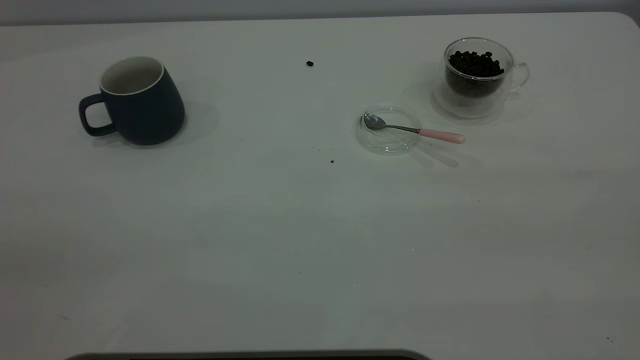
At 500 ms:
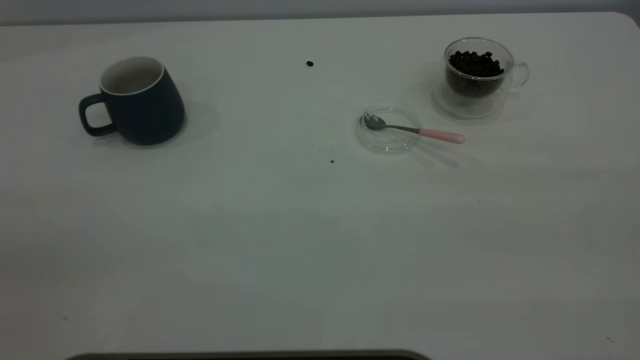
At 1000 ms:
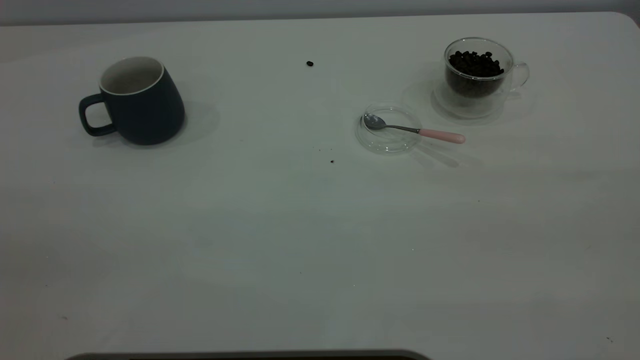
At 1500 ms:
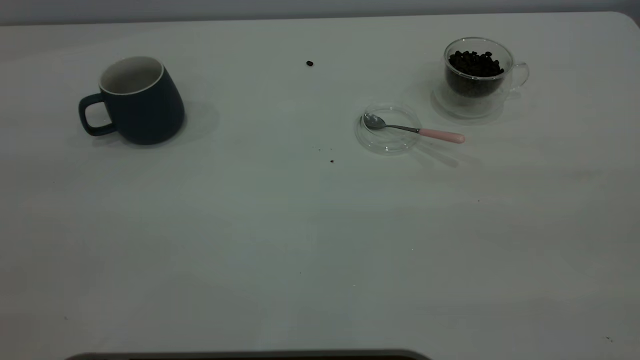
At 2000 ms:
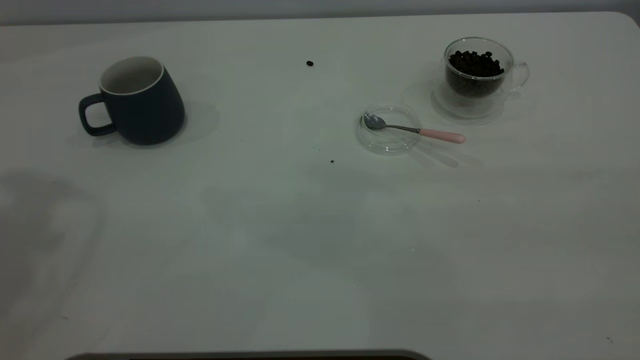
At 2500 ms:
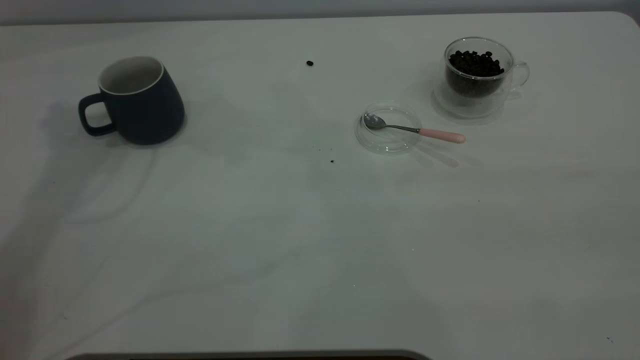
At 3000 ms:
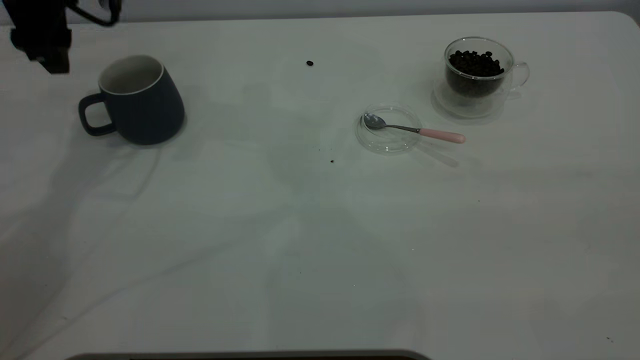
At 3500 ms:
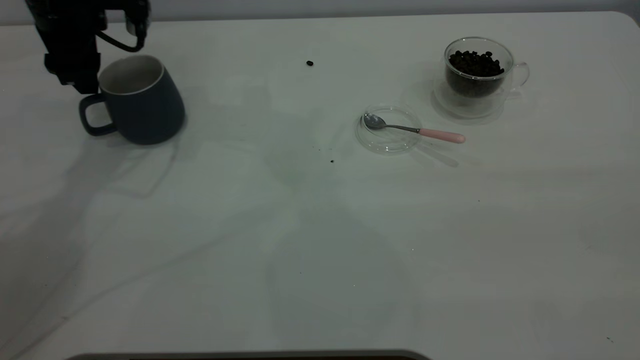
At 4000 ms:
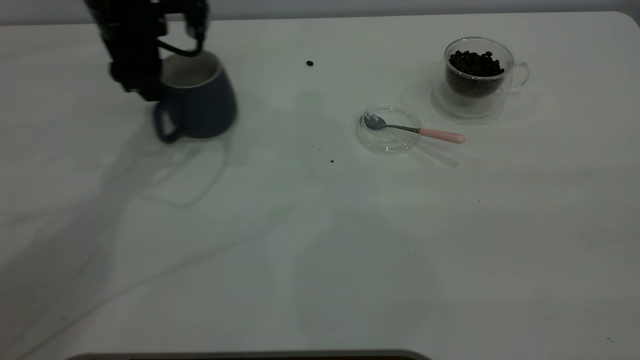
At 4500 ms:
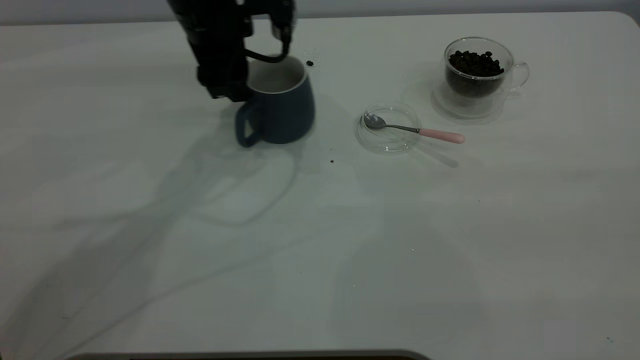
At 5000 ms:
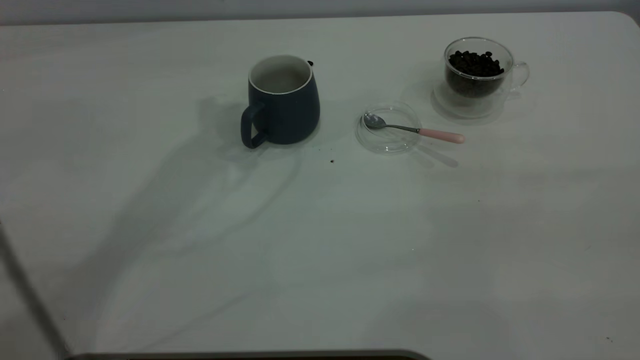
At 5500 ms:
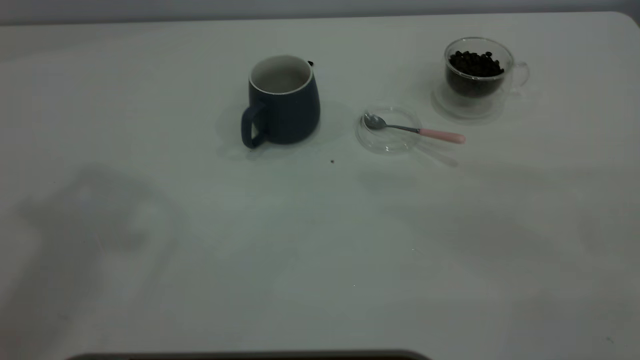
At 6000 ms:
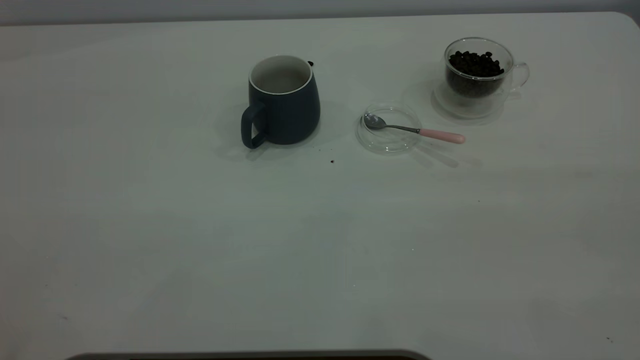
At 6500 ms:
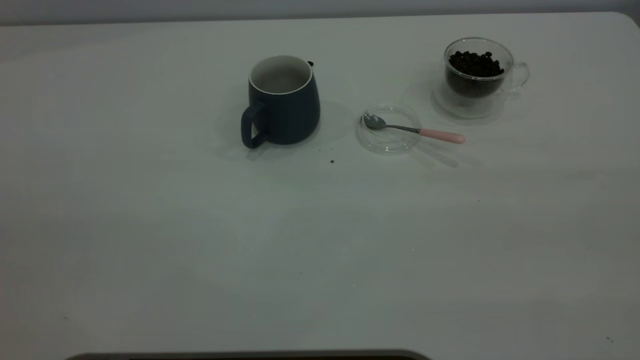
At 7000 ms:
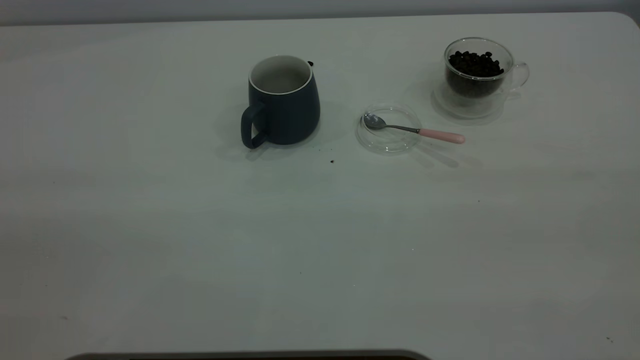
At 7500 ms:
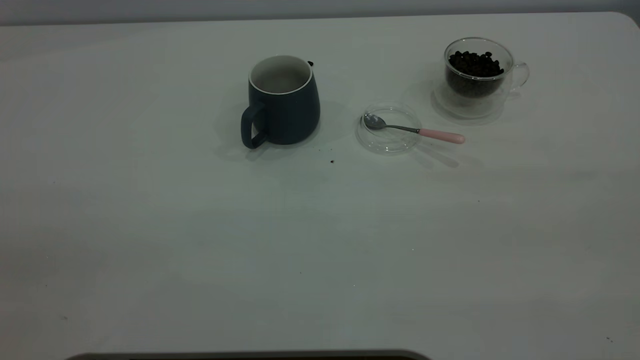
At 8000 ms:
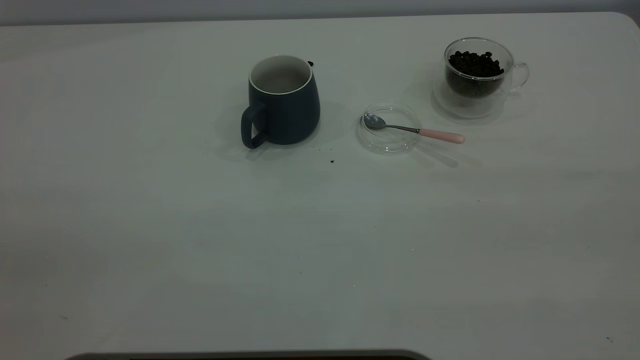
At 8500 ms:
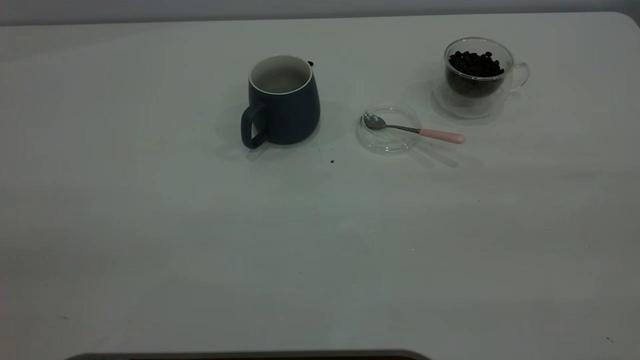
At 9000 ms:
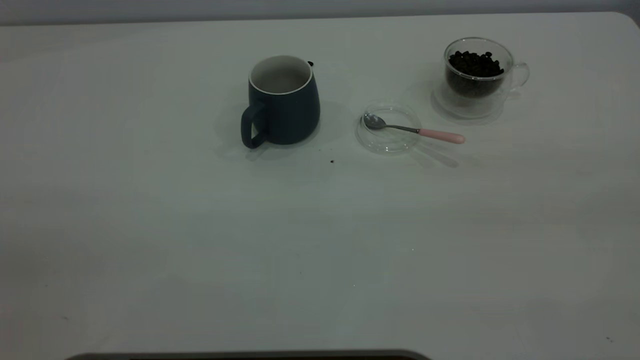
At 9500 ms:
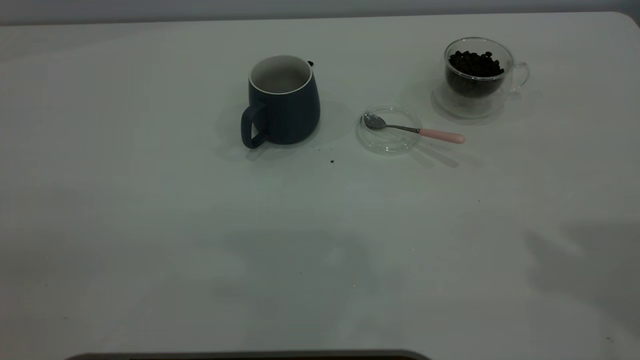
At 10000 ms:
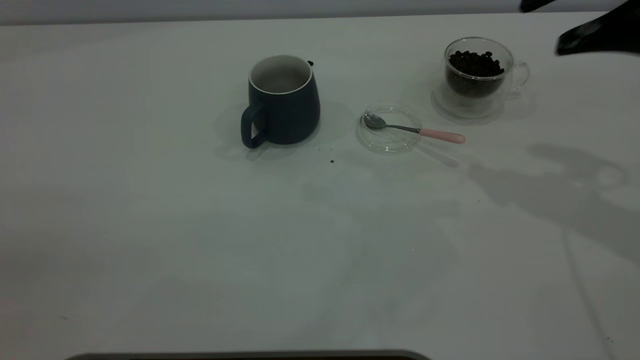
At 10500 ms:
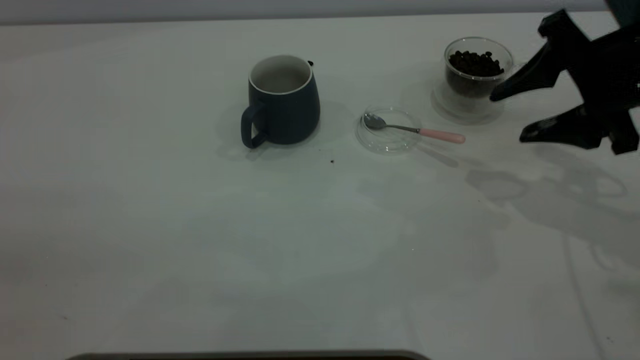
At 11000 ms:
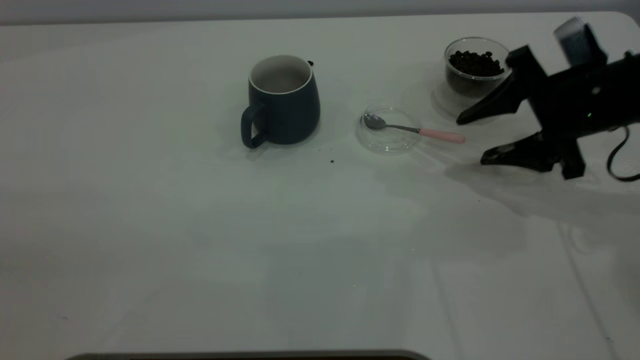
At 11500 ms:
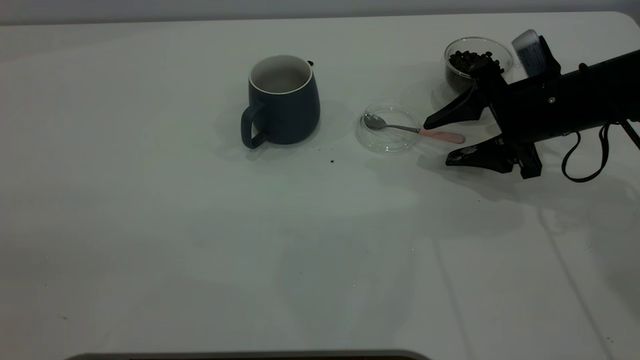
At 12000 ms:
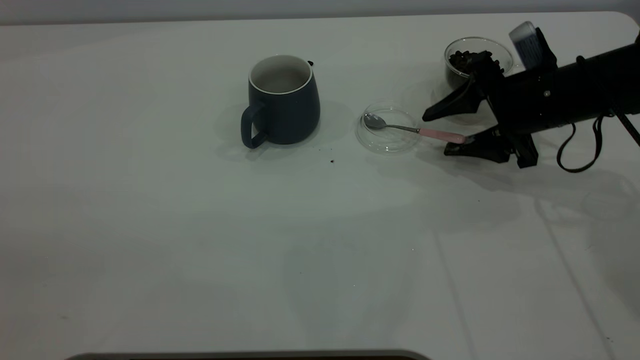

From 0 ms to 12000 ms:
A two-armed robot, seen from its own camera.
Task of the whole recording: the left gripper place the grey cup in the center of the table, the right gripper take the pink spoon from the cup lid and scoop out the coffee beans from the coffee cup and put them into the grey cup, the right gripper put the spoon back into the cup lid.
Step, from 0 ms to 4500 ms: Move the cup to the center of view.
From 2000 ms to 4000 ms: The left gripper heads downward, forward and to the right, covering roughly 35 cm.
From 4000 ms to 6000 ms: The left gripper is displaced backward and upward by some 50 cm.
From 8000 ms to 10000 ms: The right gripper travels forward by about 30 cm.
From 10000 ms to 12000 ms: The right gripper shifts some 15 cm downward.

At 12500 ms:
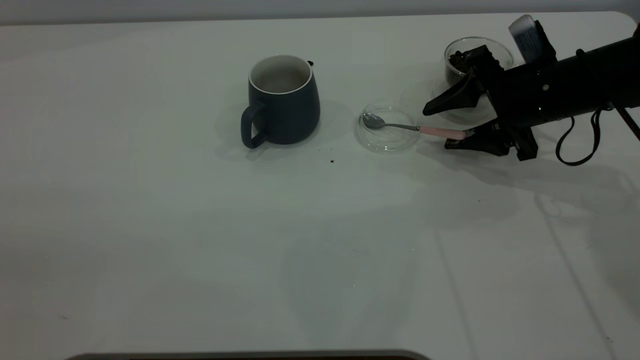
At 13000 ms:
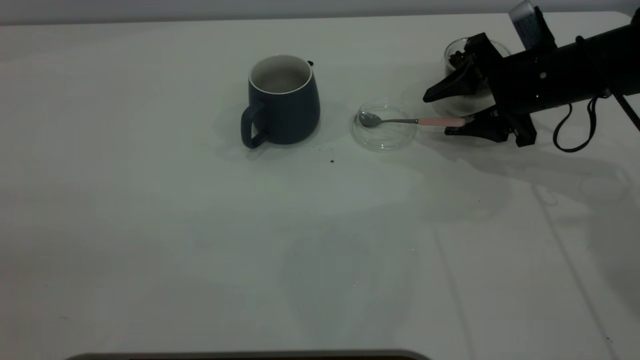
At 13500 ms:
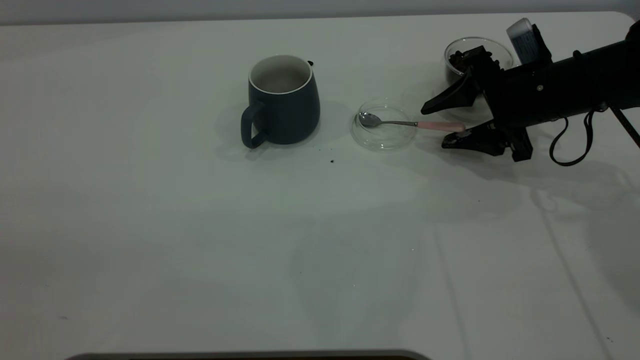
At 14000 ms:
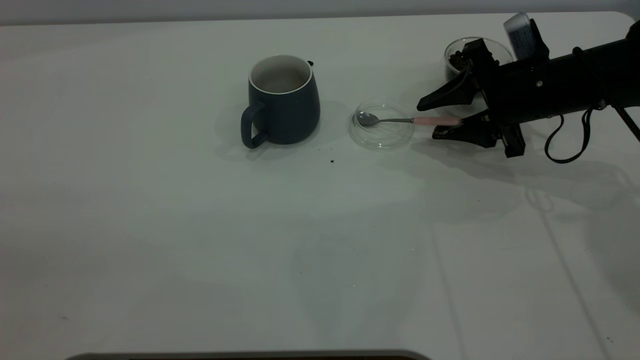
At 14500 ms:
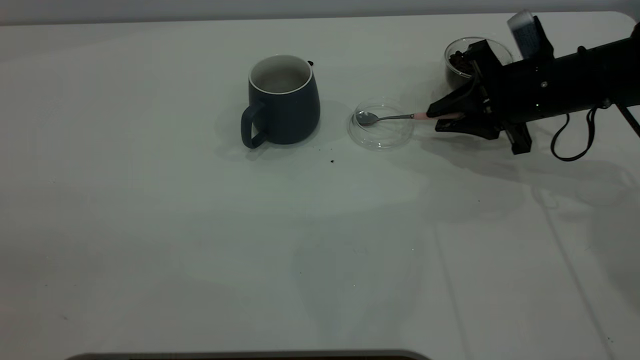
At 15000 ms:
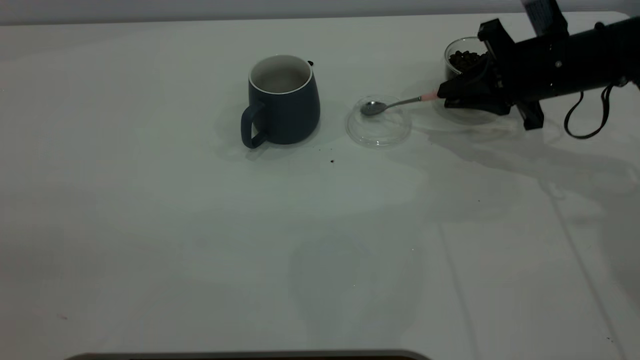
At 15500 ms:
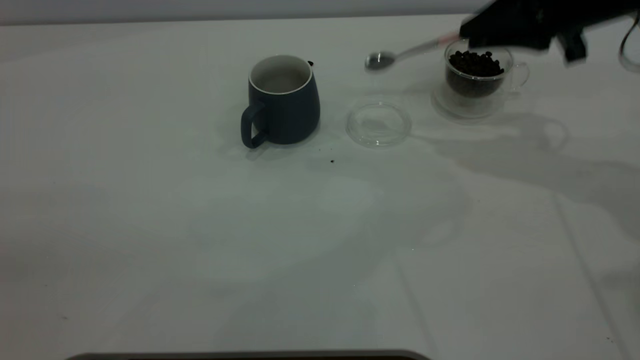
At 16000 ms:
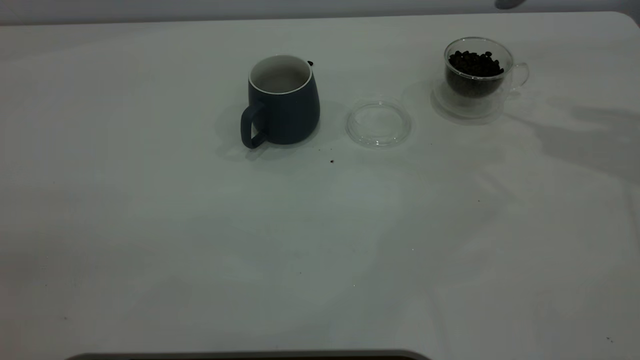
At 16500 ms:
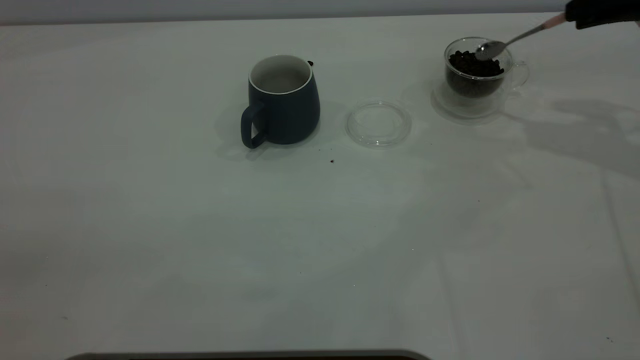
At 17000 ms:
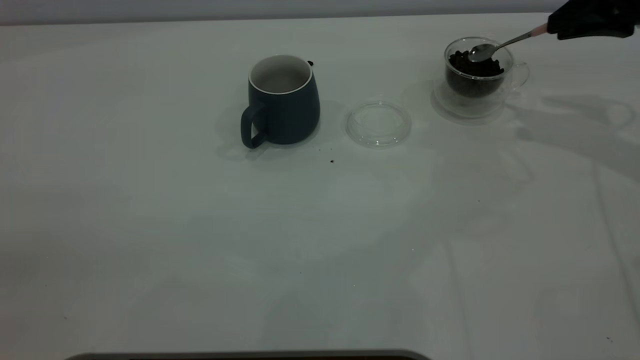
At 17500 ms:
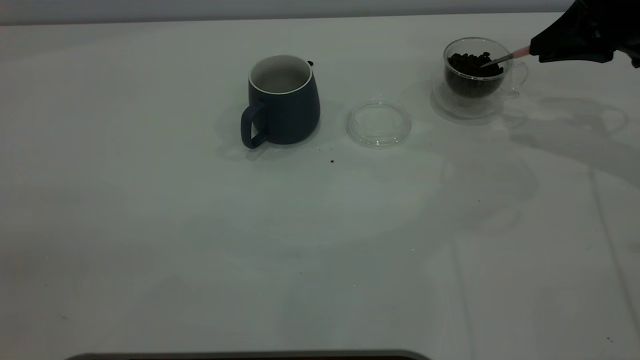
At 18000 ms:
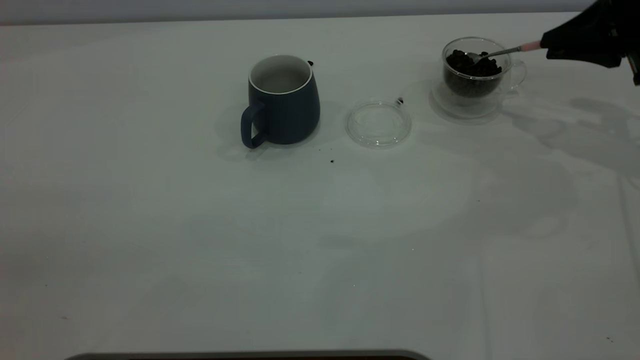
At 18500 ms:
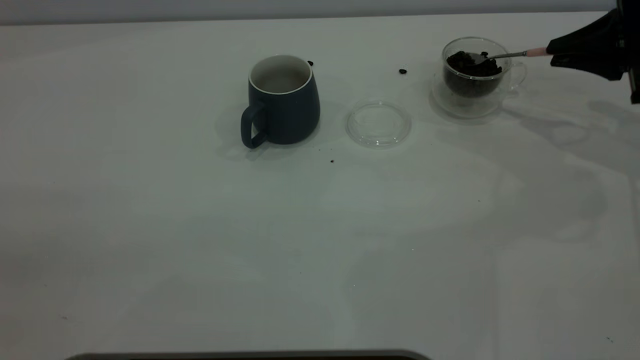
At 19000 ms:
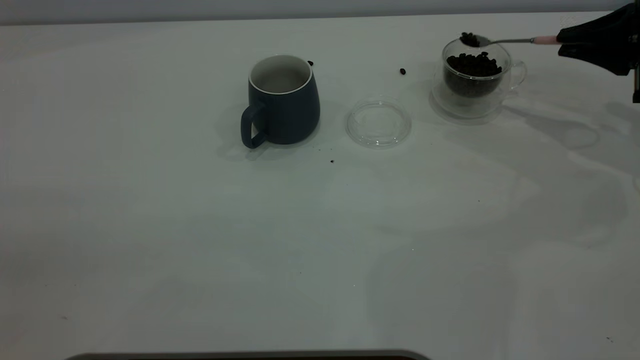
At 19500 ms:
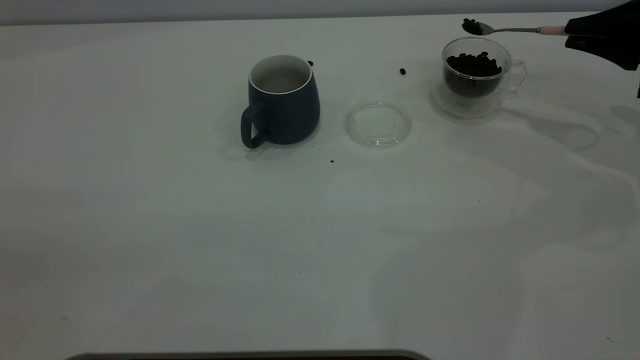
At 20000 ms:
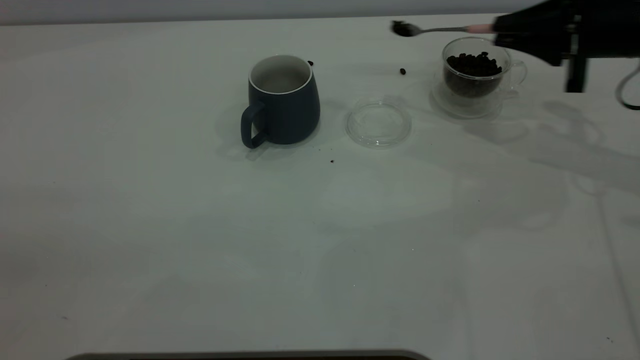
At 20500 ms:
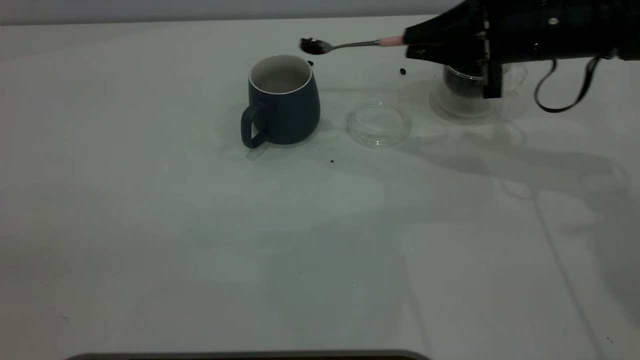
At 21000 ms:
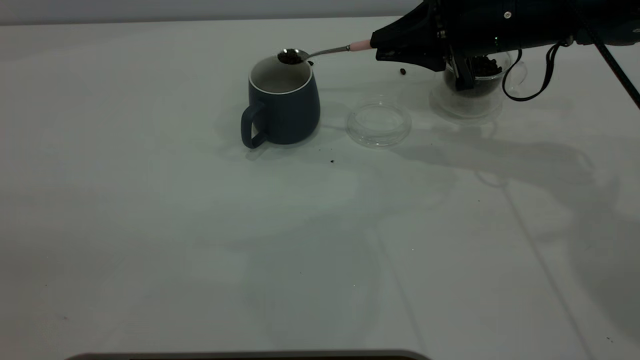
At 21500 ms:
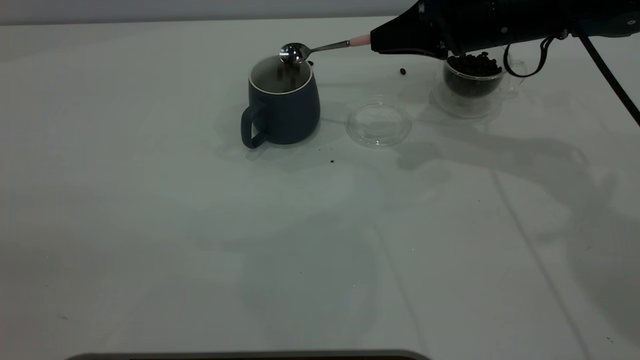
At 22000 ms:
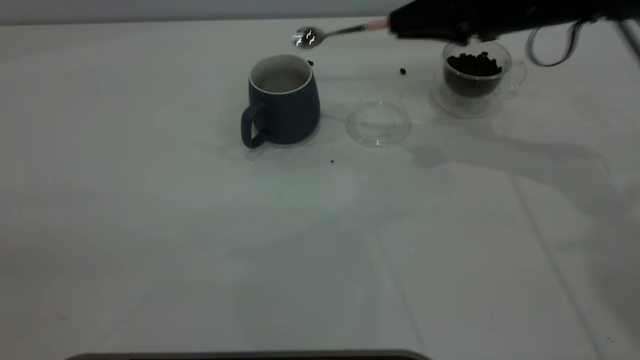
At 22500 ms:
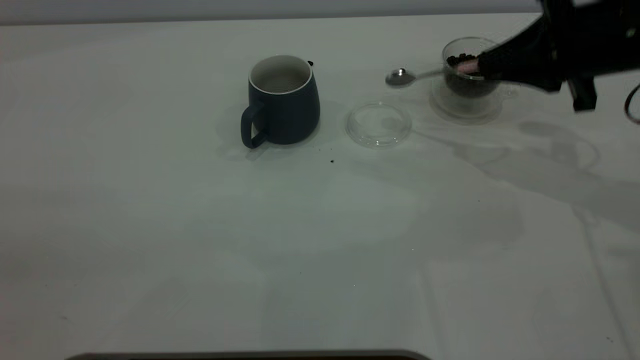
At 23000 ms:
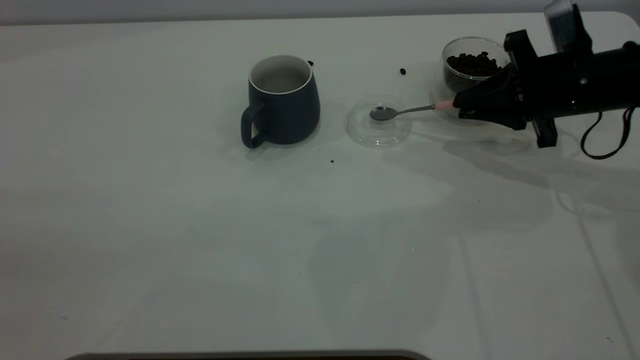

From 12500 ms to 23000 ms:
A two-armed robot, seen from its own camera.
Task of the whole recording: the left gripper place the grey cup in the center of the table, the right gripper take the pink spoon from the cup lid and scoop out the coffee beans from the coffee cup and put them into the grey cup, the right gripper put the spoon back into the cup lid.
Step, from 12500 ms to 15000 ms: Pick up the spoon.
Step, from 15500 ms to 21500 ms: Scoop a spoonful of beans into the cup.
From 12500 ms to 14500 ms: The right gripper closes up.
From 14500 ms to 16500 ms: The right gripper is displaced upward and to the right by about 15 cm.
From 16500 ms to 19000 ms: The right gripper goes roughly 10 cm downward.
From 19000 ms to 21000 ms: The right gripper heads to the left, covering roughly 20 cm.
From 21000 ms to 23000 ms: The right gripper travels to the right and downward by about 10 cm.
